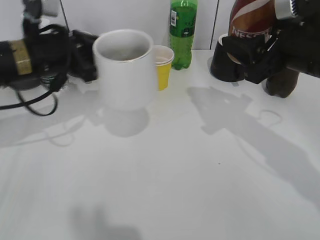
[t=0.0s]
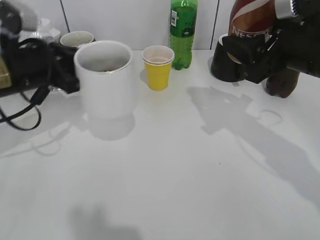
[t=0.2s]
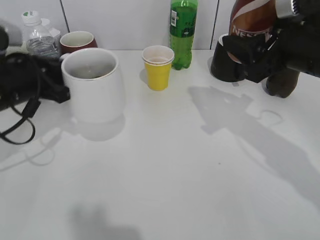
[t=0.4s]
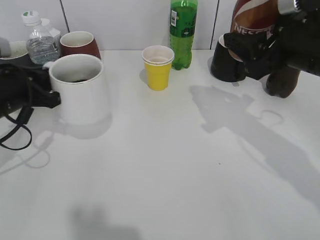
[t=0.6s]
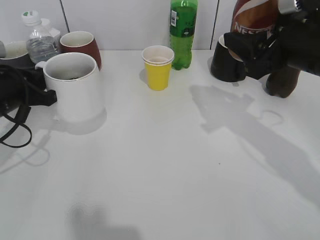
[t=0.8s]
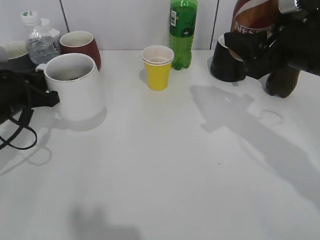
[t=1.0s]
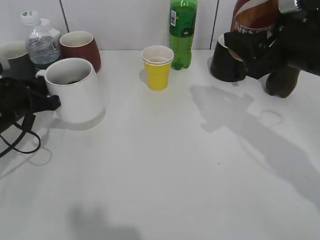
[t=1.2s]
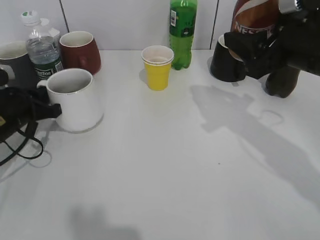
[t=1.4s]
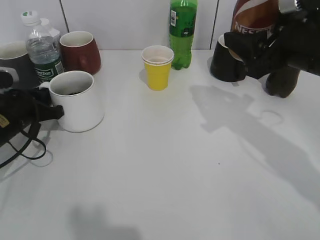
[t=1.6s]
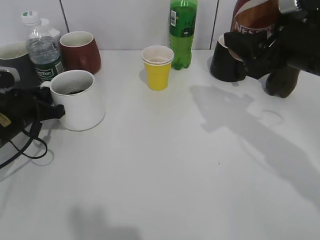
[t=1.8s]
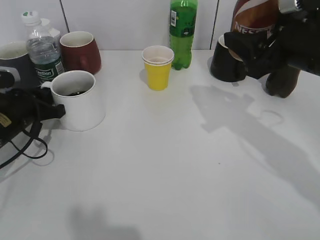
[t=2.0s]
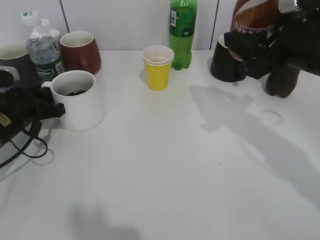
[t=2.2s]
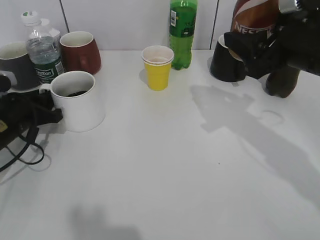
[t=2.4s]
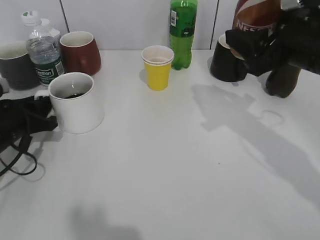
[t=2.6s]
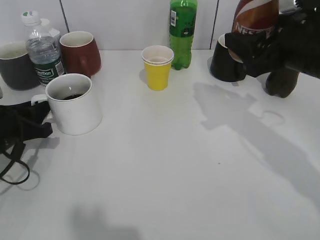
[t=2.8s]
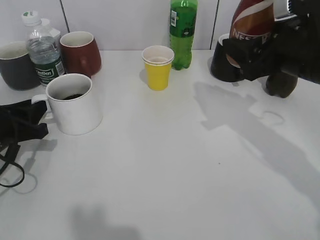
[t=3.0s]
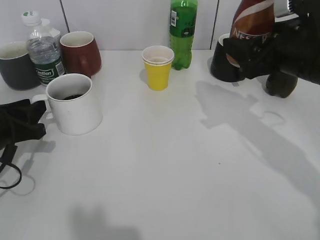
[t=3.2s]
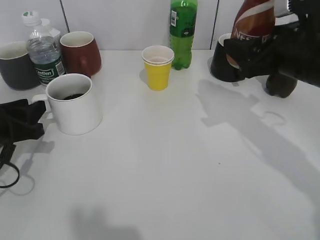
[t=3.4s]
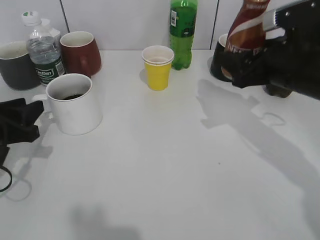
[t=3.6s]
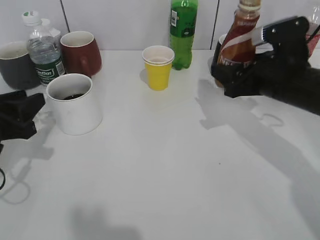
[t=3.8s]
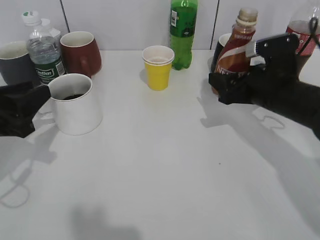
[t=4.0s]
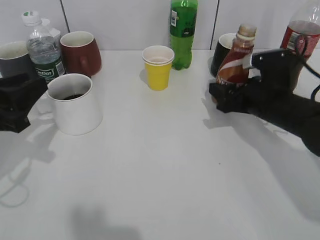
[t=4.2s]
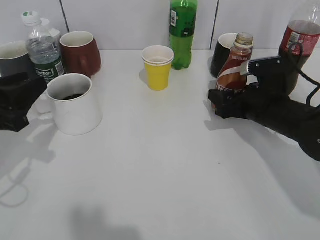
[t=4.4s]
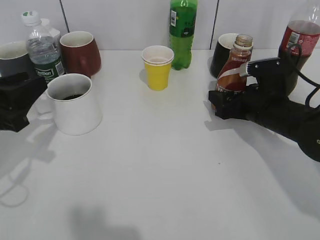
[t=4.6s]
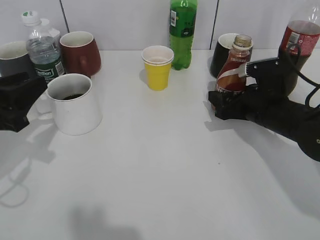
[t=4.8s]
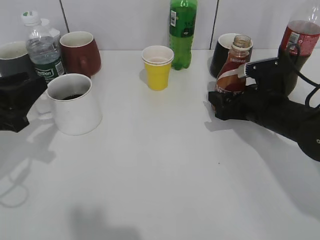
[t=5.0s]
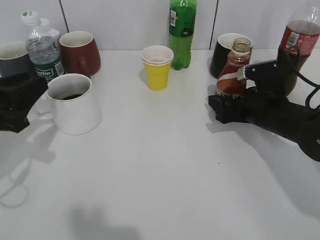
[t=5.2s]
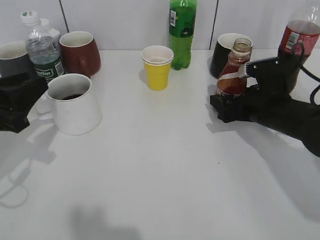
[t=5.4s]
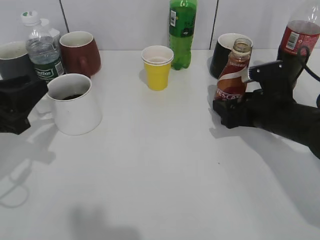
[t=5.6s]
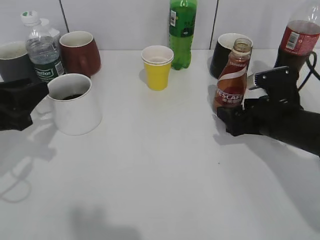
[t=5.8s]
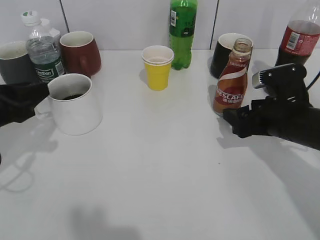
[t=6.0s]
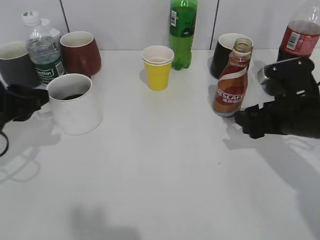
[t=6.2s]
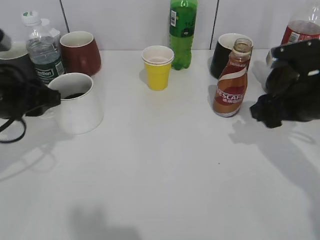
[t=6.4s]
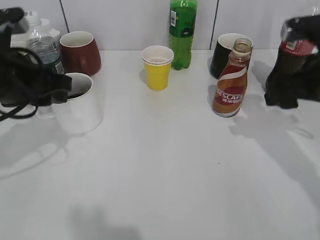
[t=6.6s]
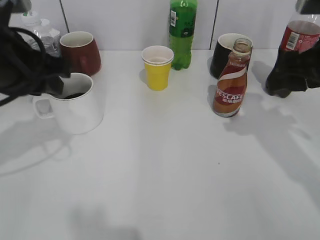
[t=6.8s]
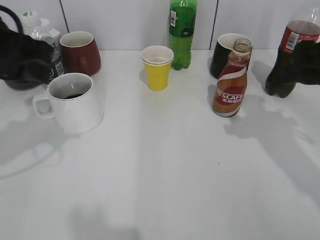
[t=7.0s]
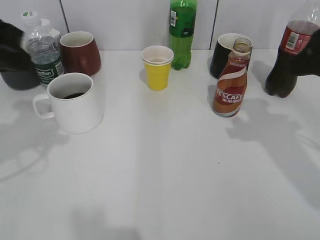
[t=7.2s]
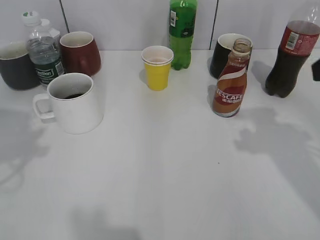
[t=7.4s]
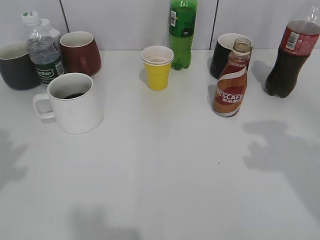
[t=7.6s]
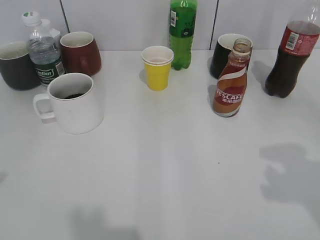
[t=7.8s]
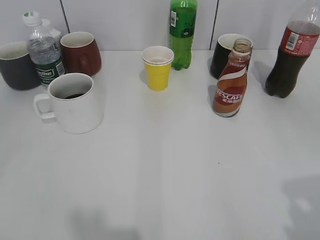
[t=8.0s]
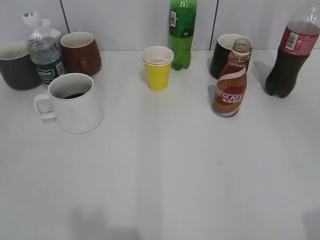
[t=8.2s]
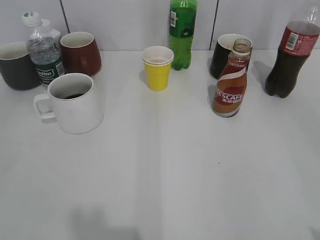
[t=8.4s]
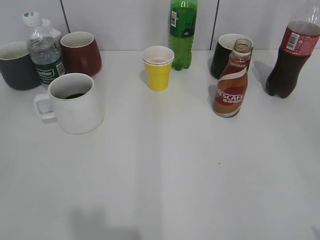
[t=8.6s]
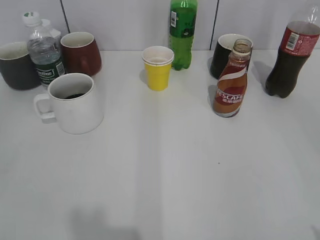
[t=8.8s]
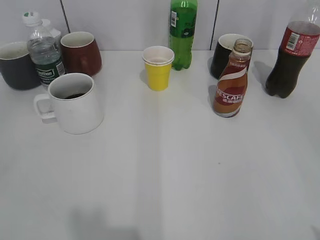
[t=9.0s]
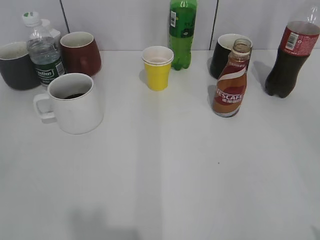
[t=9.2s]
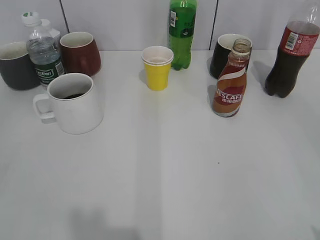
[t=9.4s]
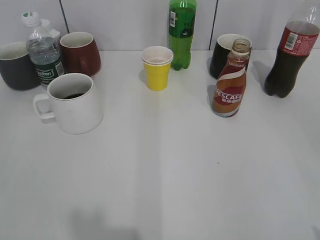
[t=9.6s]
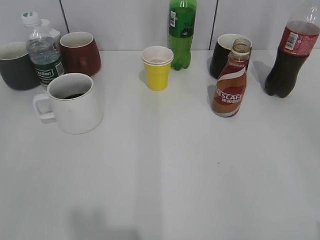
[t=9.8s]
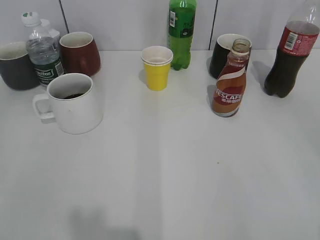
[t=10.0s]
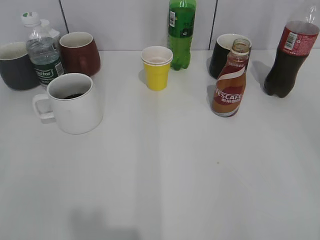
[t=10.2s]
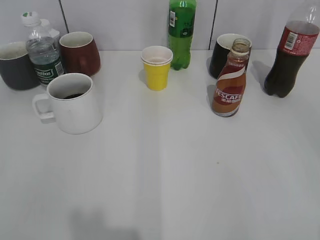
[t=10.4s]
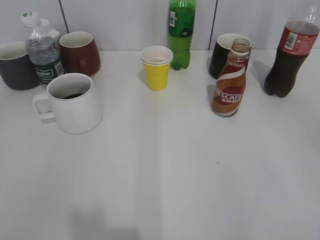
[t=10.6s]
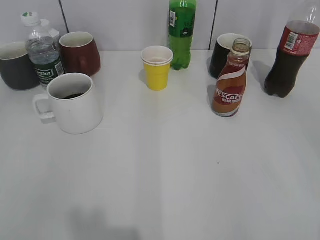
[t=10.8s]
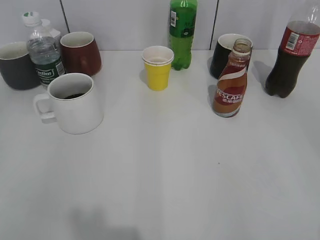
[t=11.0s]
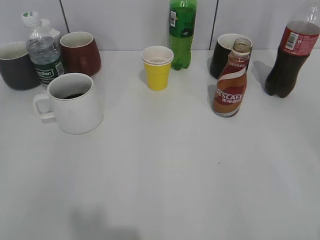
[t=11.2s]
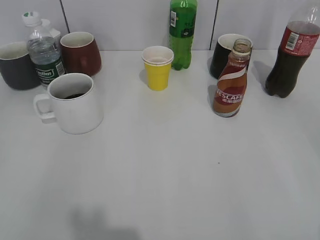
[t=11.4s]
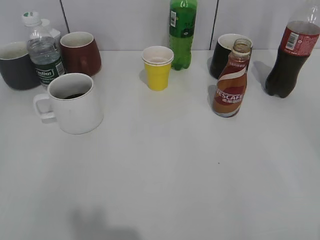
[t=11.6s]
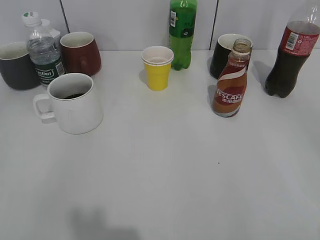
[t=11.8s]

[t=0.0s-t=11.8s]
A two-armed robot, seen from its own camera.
Step, t=0.0s to t=3.4s: Place the white cup on the table with left gripper.
Step, t=3.8s to t=6.0s: Place the coffee bottle on the table with right gripper.
t=0.0s to t=1.4s: The left gripper heads downward and to the left, covering approximately 15 cm.
t=1.4s to t=3.0s: The left gripper opens its fingers.
t=3.0s to t=4.4s: The right gripper heads downward, covering roughly 15 cm. Meanwhile the left gripper shifts approximately 5 cm upward.
t=4.4s to t=6.0s: The grippers make only small movements.
t=6.0s to t=7.4s: Both grippers move upward, about 20 cm.
t=10.4s to t=11.8s: The grippers move only a little.
